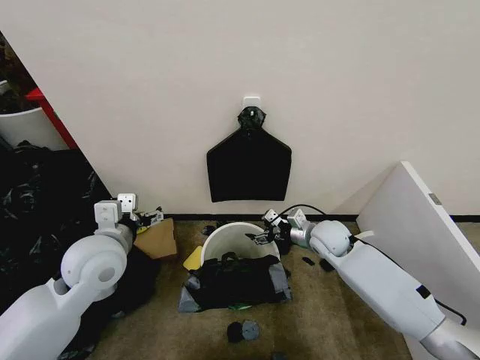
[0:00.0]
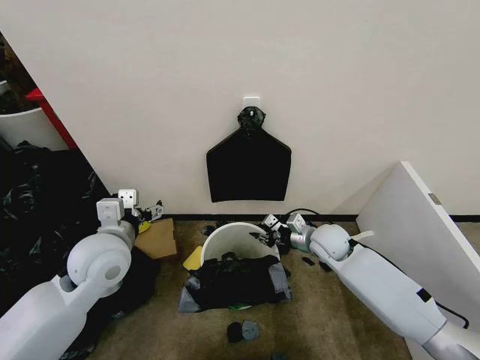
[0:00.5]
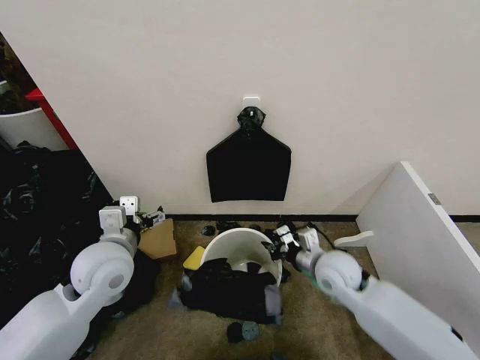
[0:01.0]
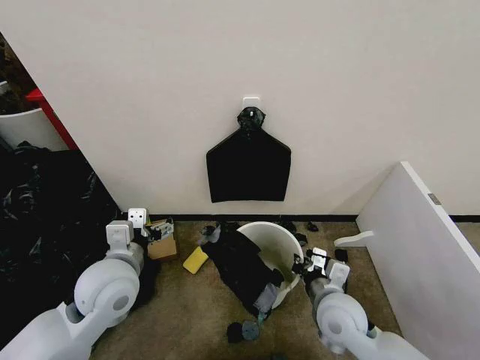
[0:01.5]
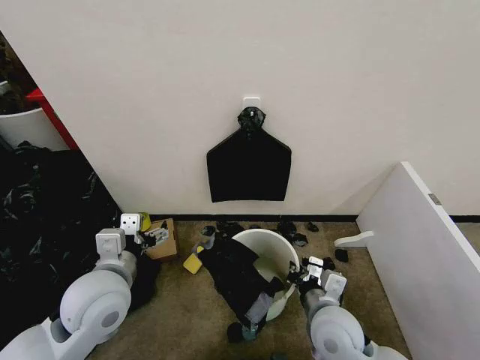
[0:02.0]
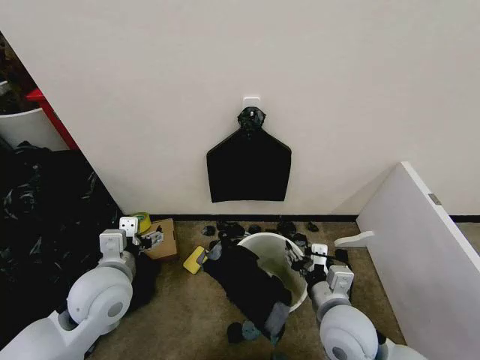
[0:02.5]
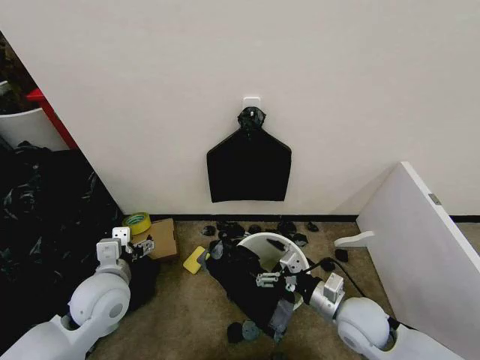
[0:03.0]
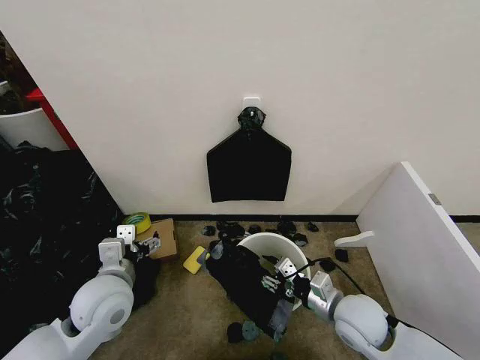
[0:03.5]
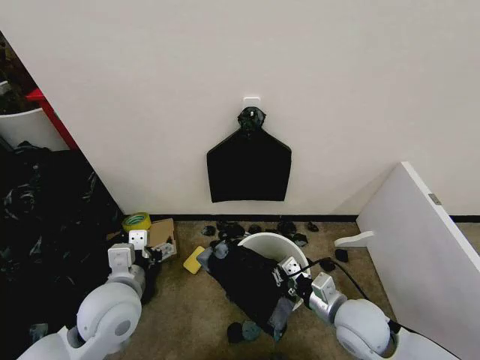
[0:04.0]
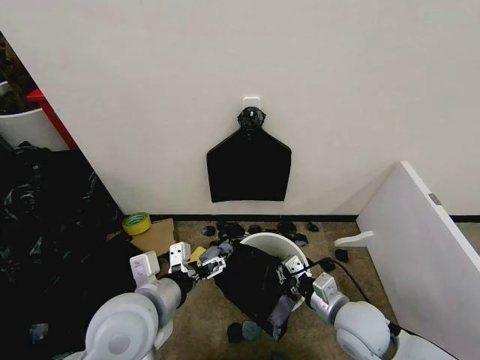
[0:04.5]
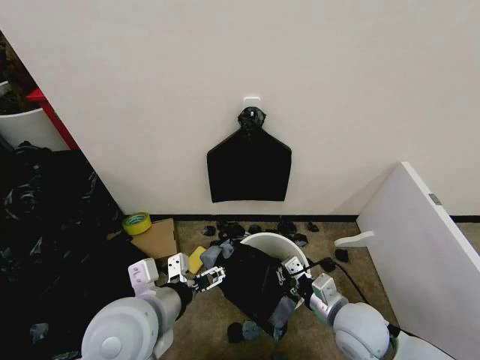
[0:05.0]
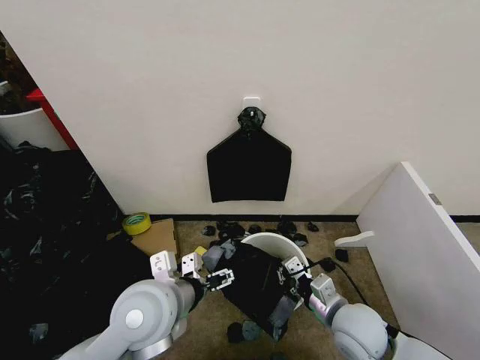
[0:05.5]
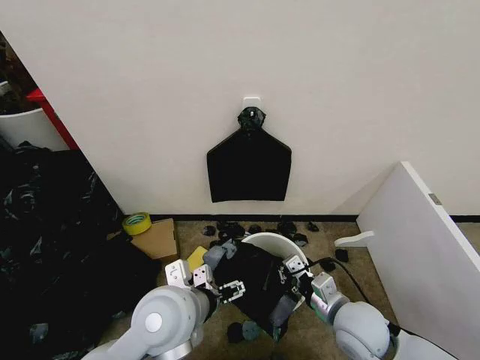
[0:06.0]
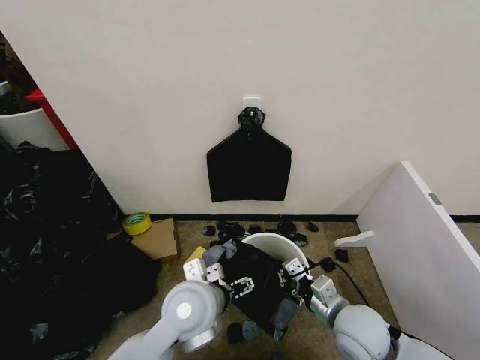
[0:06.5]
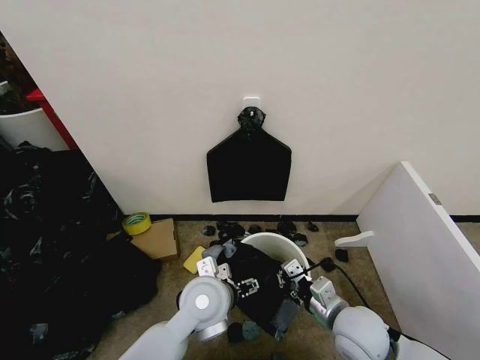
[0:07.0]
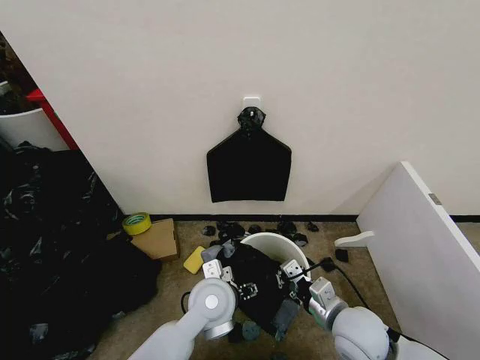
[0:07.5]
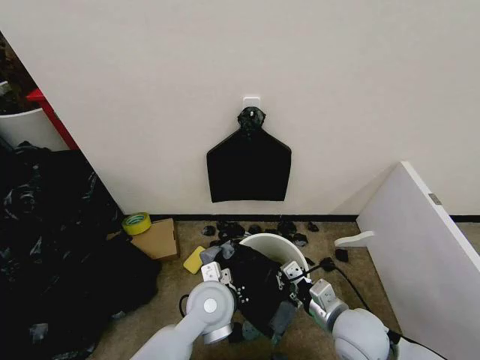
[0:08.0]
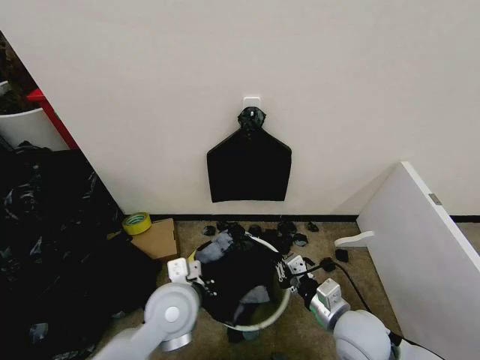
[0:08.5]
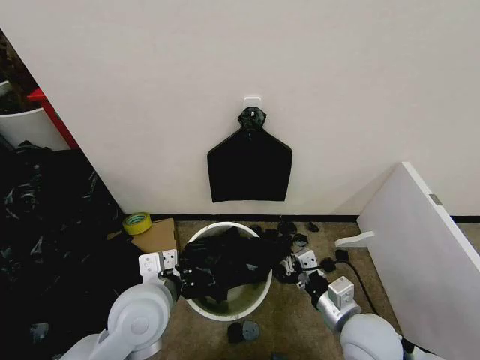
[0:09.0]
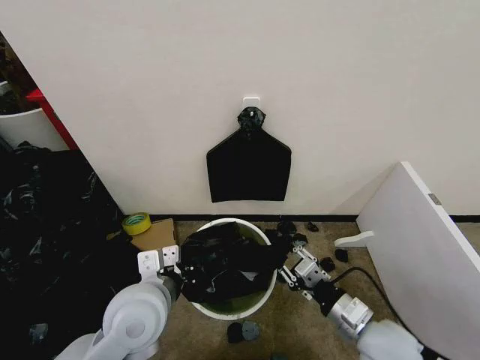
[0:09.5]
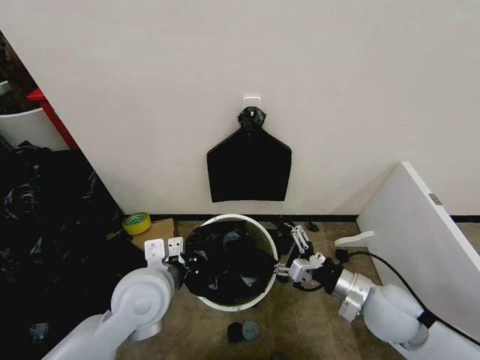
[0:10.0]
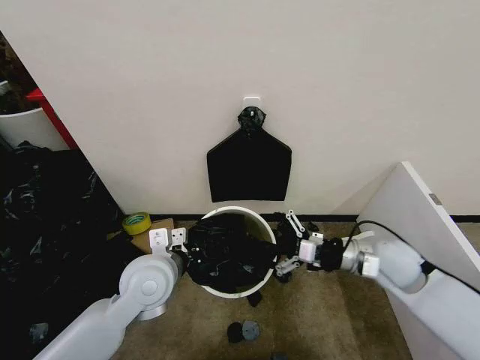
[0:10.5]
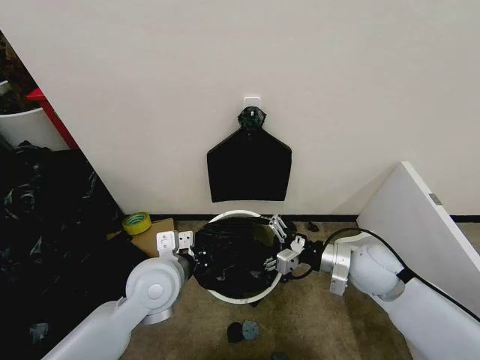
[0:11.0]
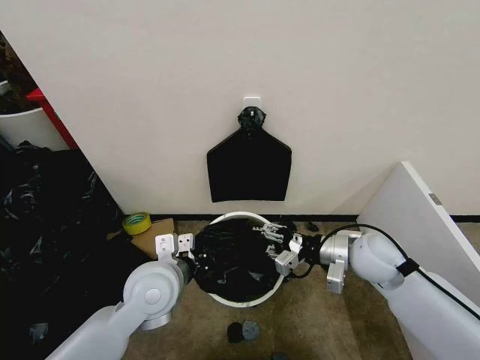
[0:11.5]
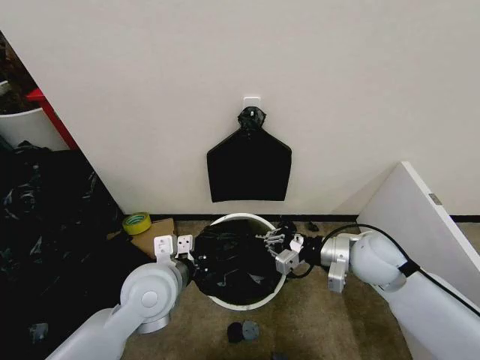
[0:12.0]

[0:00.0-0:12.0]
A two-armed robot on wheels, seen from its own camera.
Task of the whole recording: Place the garbage bag over the trash bin.
0:00.0 to 0:02.0: The left gripper shifts about 5 cm backward. The right gripper moves backward, about 20 cm, and closes up.
0:02.0 to 0:04.0: The right gripper heads to the right, covering about 5 cm, and opens, then closes once more.
0:04.0 to 0:06.0: The left gripper goes approximately 10 cm to the right.
0:06.0 to 0:08.0: The left gripper shifts some 10 cm downward and to the right, and closes its fingers.
0:08.0 to 0:10.0: The left gripper is displaced to the left and upward by about 15 cm. The right gripper shifts approximately 5 cm to the right, and opens up.
0:10.0 to 0:12.0: The right gripper heads forward and upward, covering approximately 10 cm, and closes its fingers.

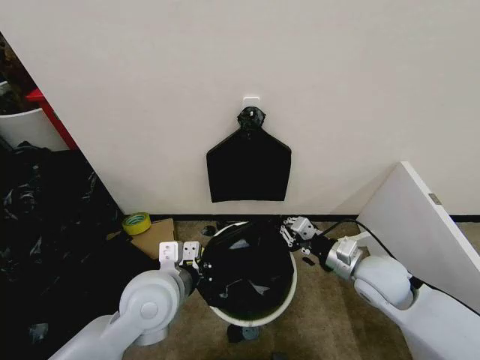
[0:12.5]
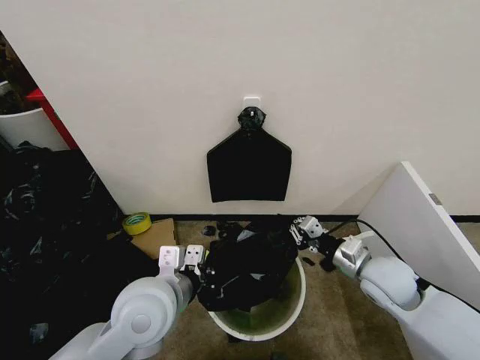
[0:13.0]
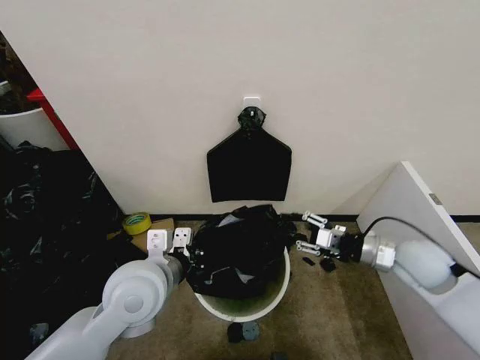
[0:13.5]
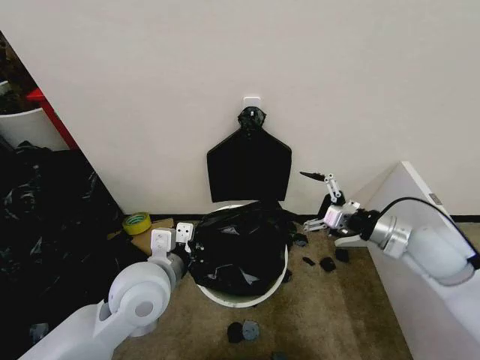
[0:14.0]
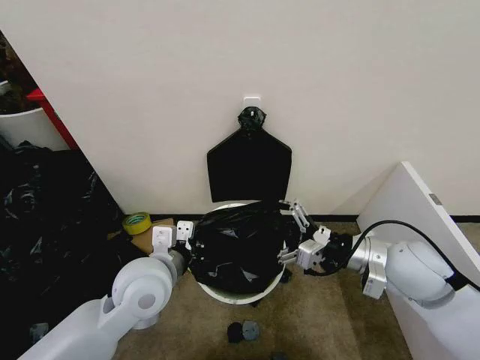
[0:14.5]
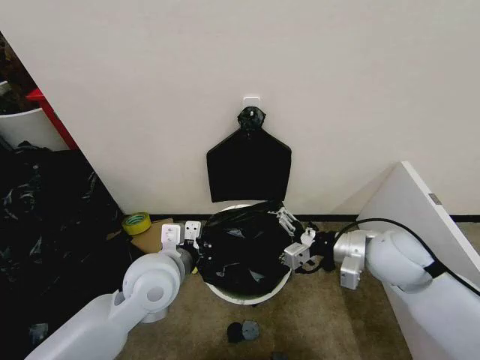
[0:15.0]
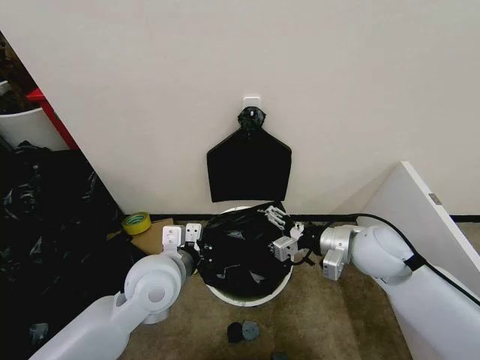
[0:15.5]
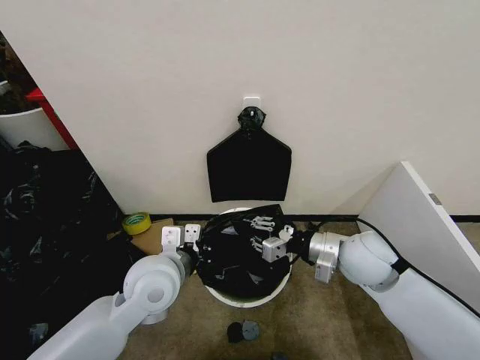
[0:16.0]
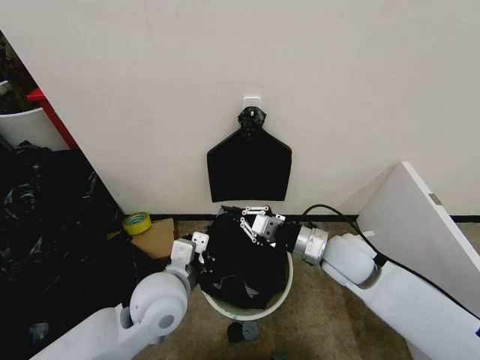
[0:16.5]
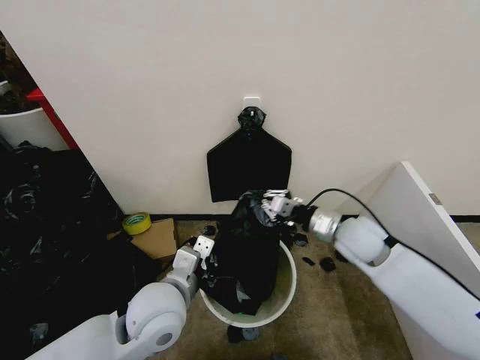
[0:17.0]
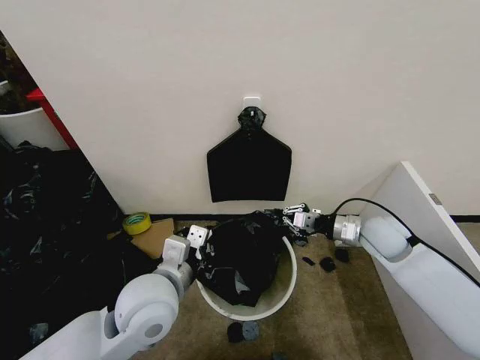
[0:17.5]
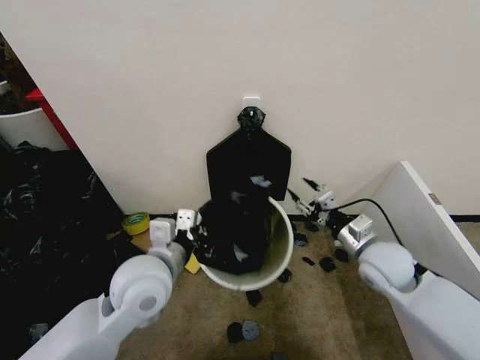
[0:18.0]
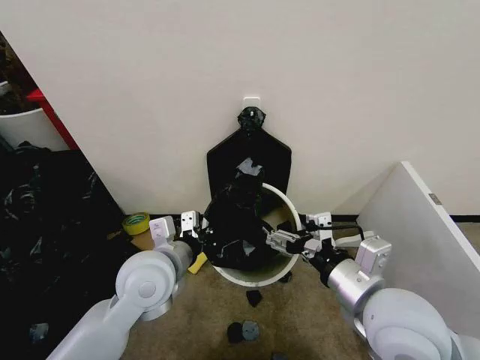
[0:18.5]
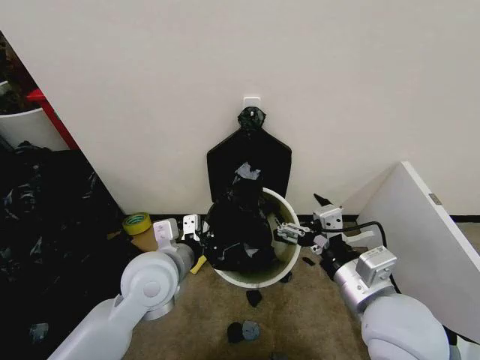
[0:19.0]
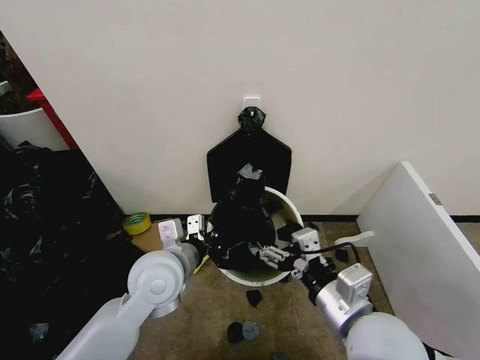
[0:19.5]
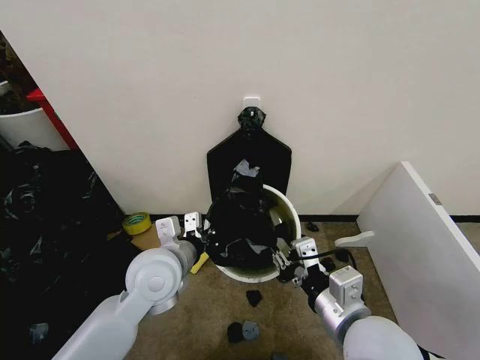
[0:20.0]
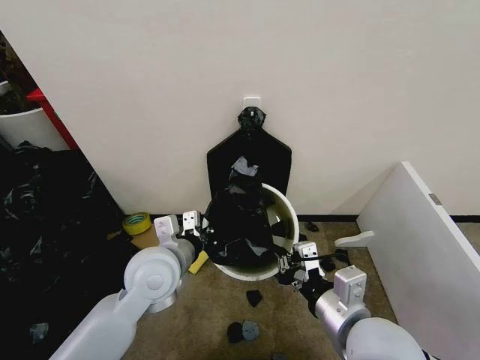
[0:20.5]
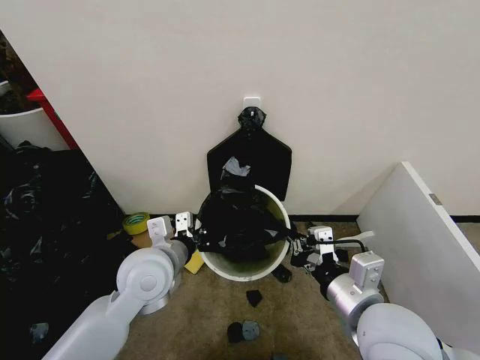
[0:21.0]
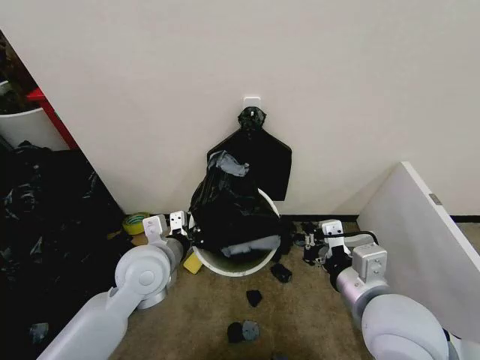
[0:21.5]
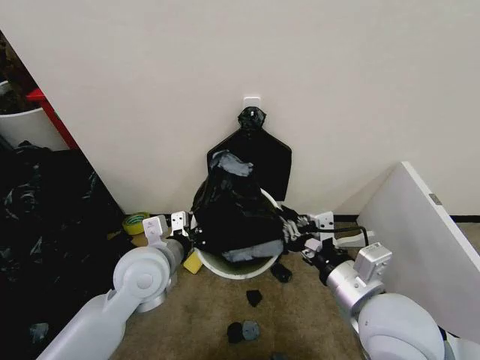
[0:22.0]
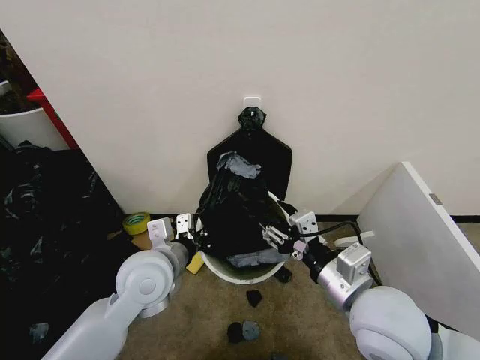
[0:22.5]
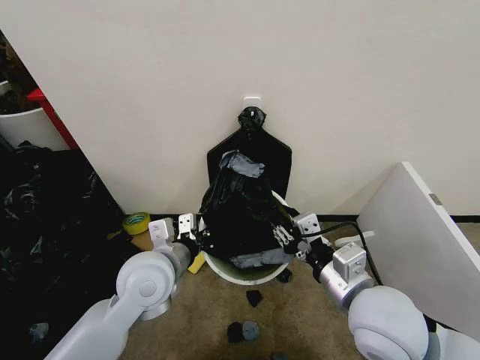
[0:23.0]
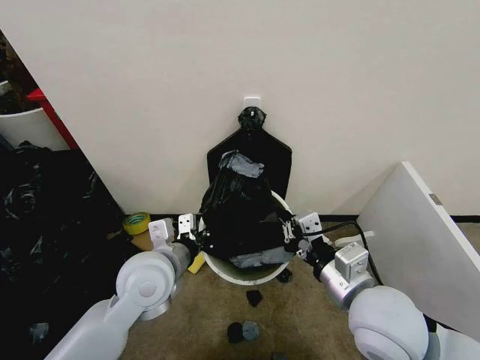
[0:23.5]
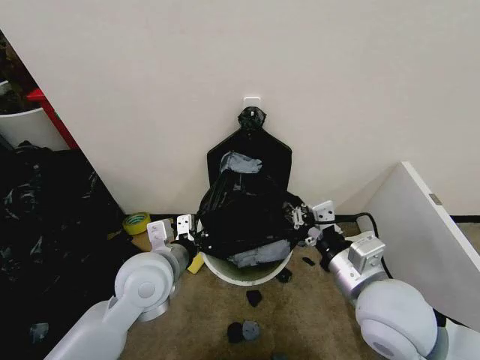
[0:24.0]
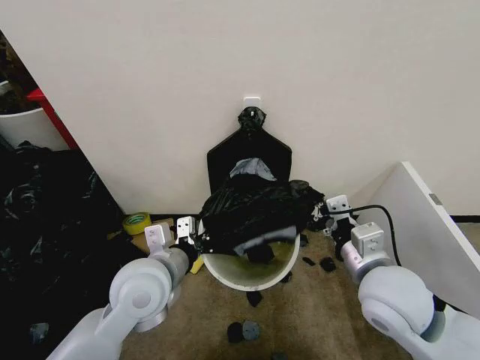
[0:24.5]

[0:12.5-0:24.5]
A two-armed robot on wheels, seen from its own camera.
Task of the whole recording: Place the garbage bag over the trash bin.
0:12.5 to 0:14.5: The right gripper moves upward, approximately 5 cm, and opens up.
0:14.5 to 0:16.5: The right gripper goes some 10 cm to the left, and closes up.
0:16.5 to 0:18.5: The right gripper moves backward and upward, approximately 15 cm, and opens.
0:18.5 to 0:20.5: The right gripper closes.
0:20.5 to 0:22.5: The right gripper opens its fingers.
0:22.5 to 0:24.5: The right gripper changes place by roughly 5 cm, and closes.

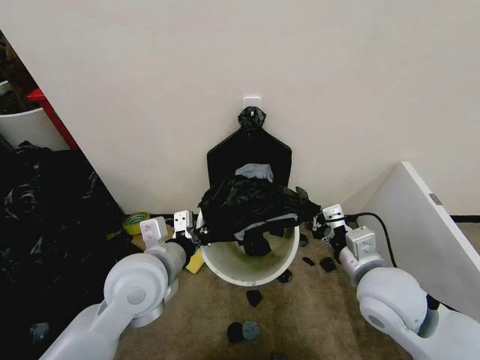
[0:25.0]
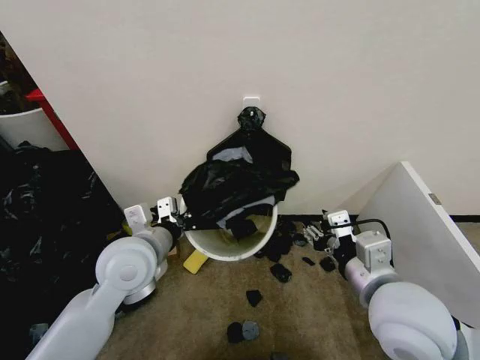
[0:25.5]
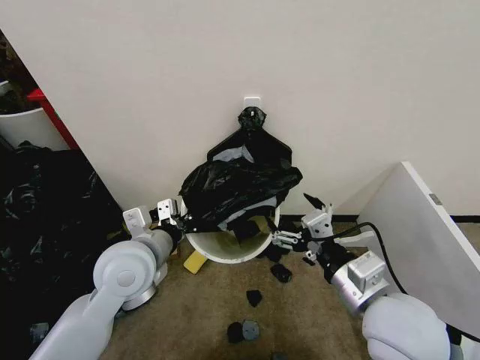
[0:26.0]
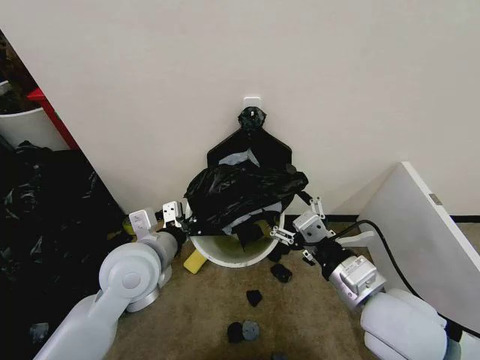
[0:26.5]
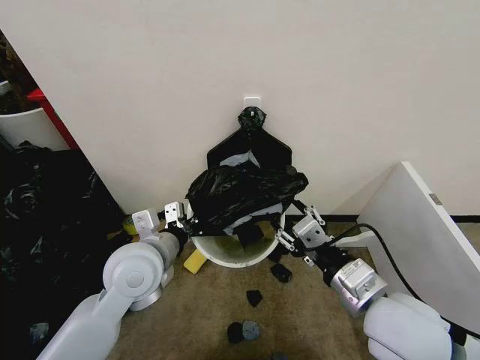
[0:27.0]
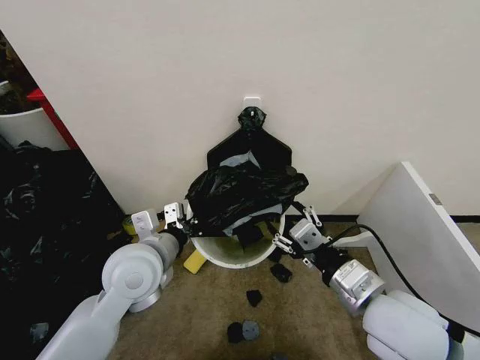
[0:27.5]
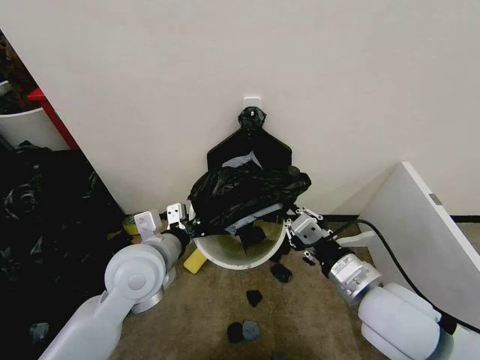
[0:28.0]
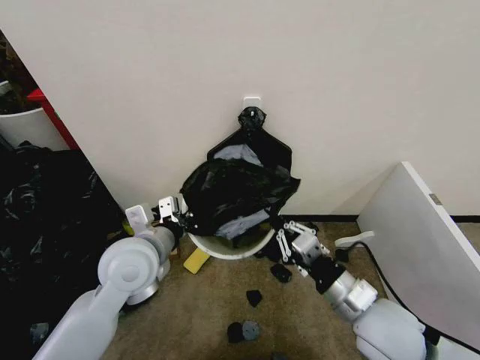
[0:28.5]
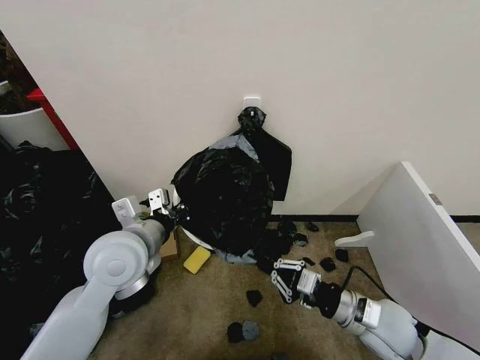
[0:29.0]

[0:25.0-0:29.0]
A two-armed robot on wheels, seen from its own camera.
Task of the whole recording: Place the garbage bag over the trash bin.
0:25.0 to 0:27.0: The right gripper shifts roughly 5 cm backward, and opens up.
0:27.0 to 0:29.0: The right gripper shifts some 15 cm downward and to the right, and closes its fingers.
